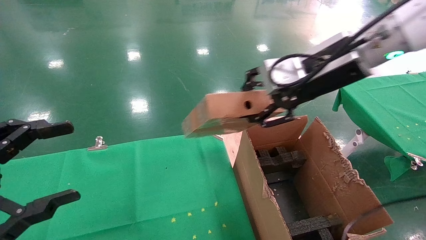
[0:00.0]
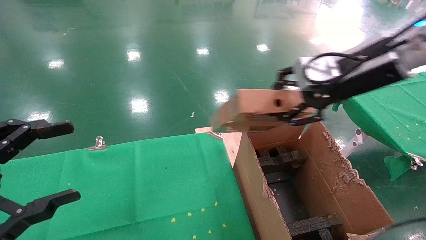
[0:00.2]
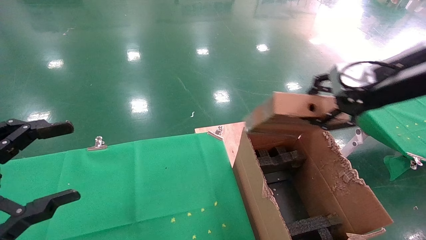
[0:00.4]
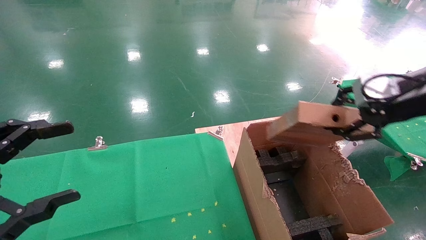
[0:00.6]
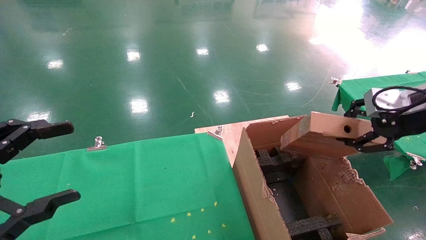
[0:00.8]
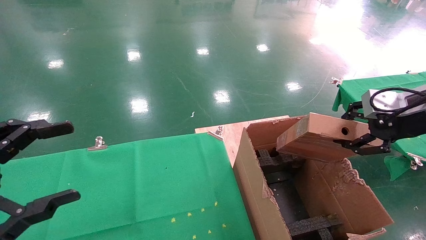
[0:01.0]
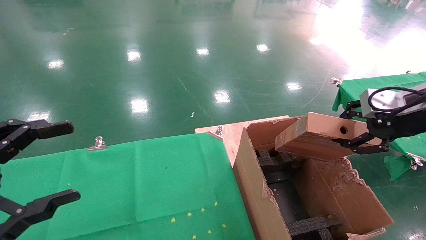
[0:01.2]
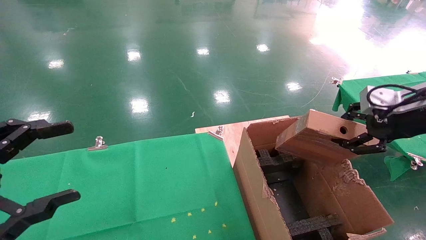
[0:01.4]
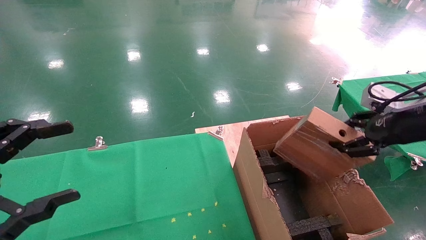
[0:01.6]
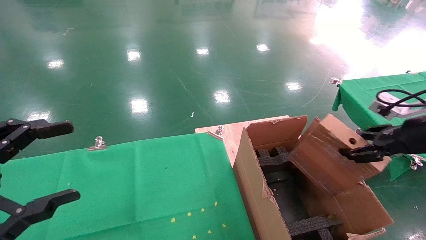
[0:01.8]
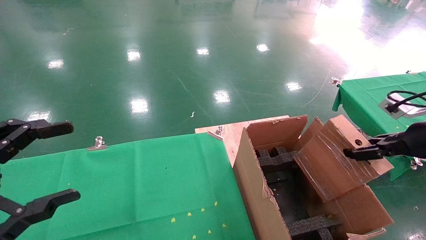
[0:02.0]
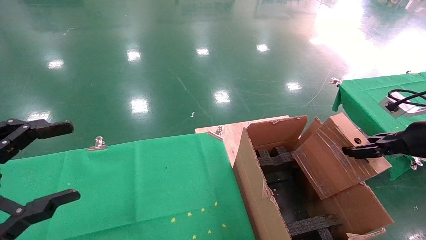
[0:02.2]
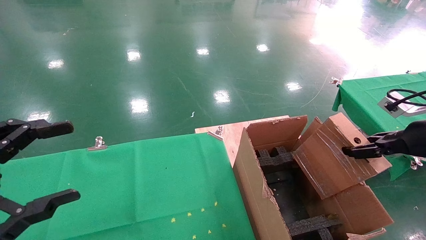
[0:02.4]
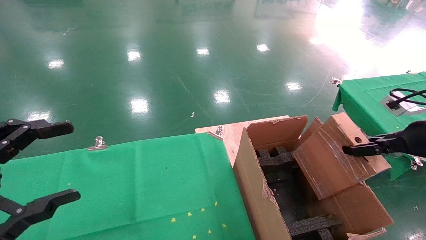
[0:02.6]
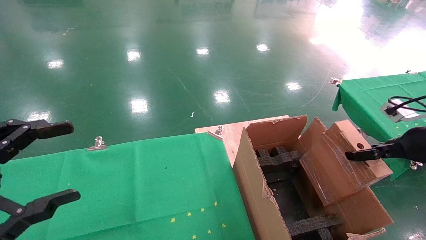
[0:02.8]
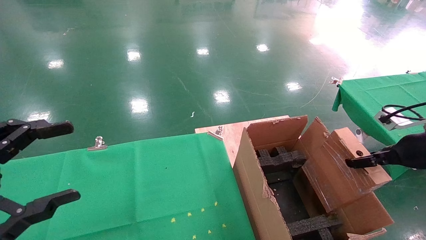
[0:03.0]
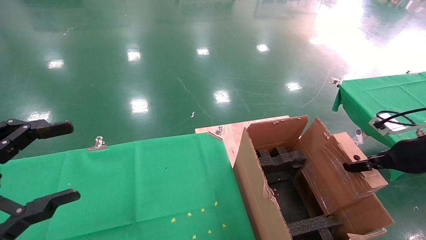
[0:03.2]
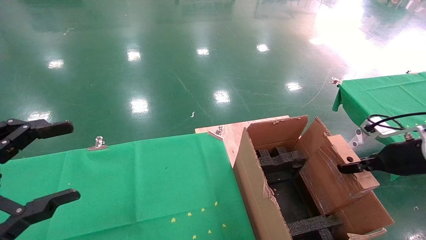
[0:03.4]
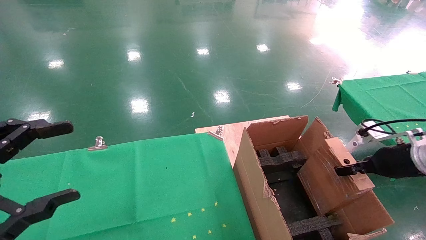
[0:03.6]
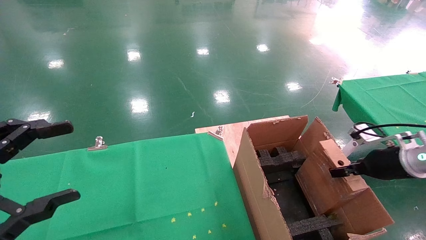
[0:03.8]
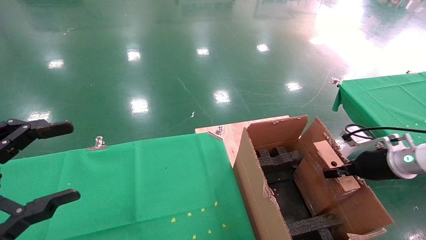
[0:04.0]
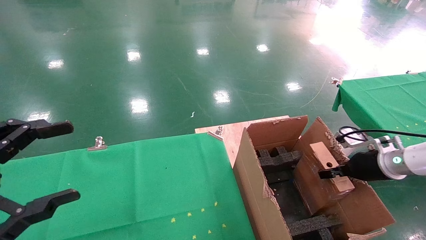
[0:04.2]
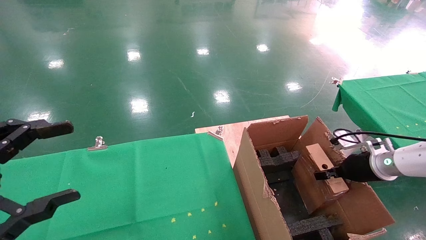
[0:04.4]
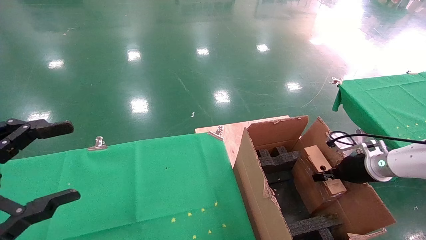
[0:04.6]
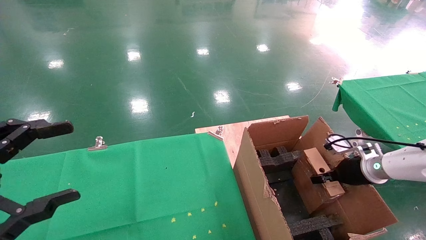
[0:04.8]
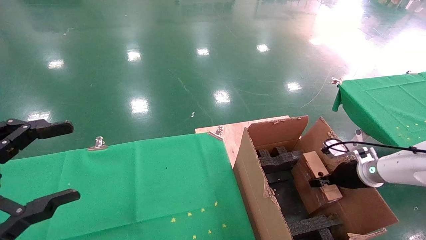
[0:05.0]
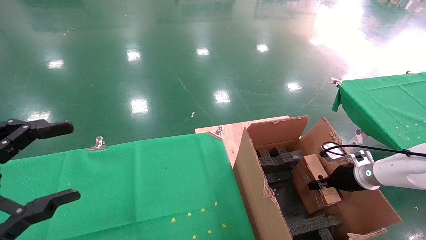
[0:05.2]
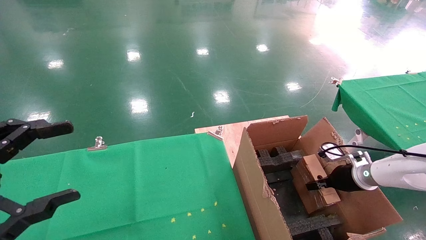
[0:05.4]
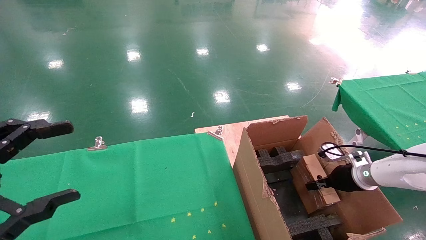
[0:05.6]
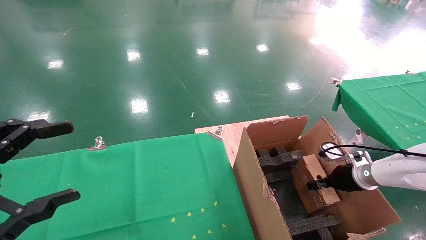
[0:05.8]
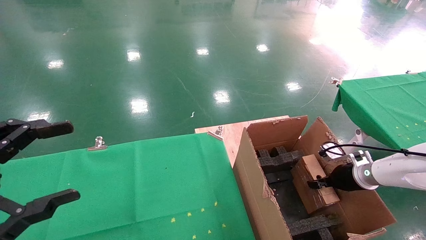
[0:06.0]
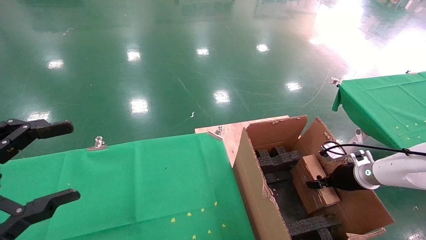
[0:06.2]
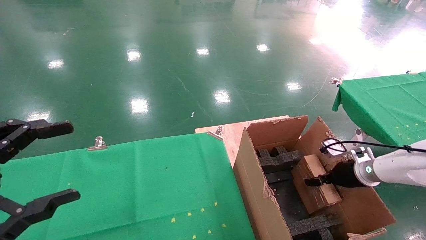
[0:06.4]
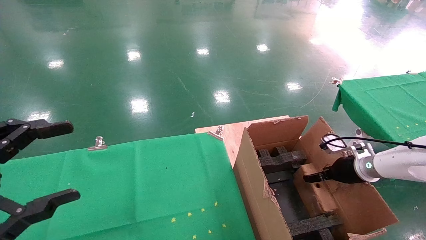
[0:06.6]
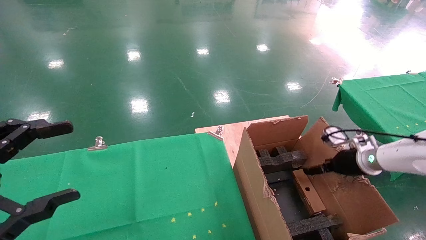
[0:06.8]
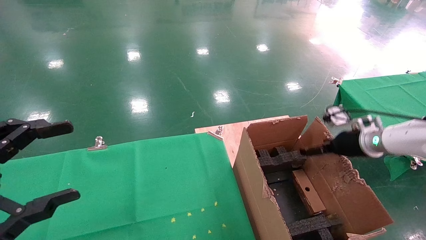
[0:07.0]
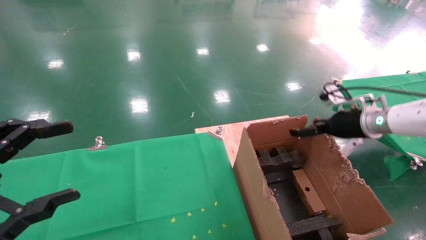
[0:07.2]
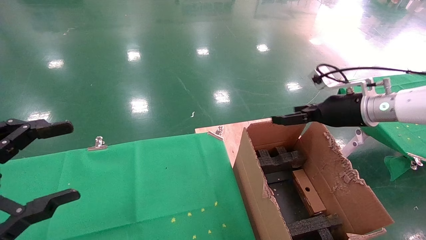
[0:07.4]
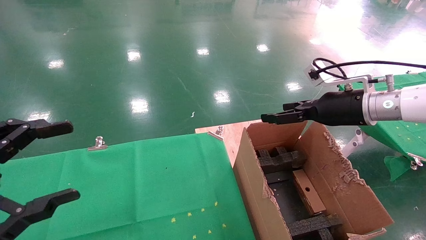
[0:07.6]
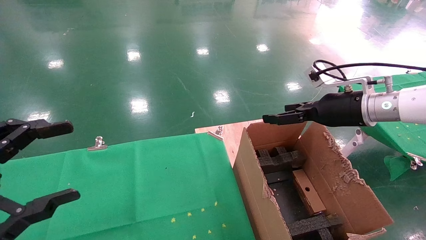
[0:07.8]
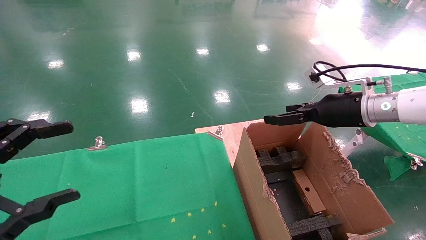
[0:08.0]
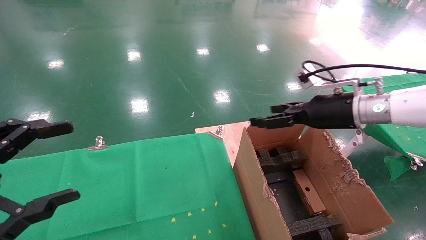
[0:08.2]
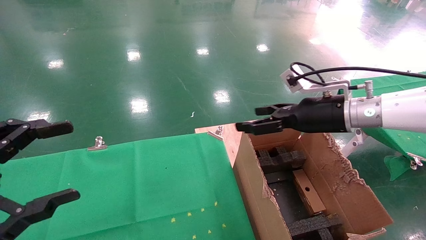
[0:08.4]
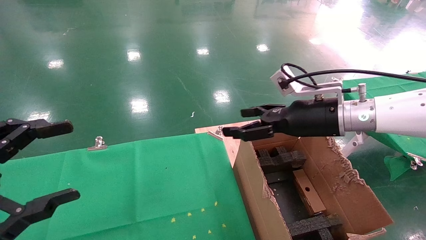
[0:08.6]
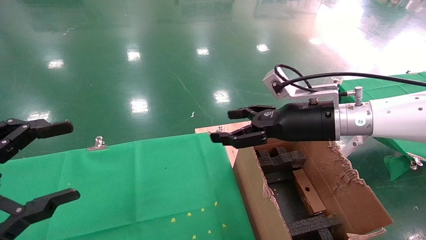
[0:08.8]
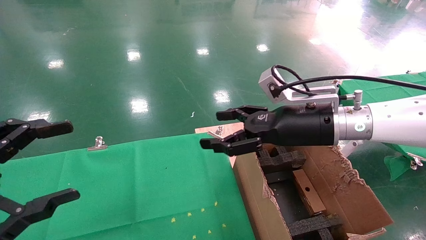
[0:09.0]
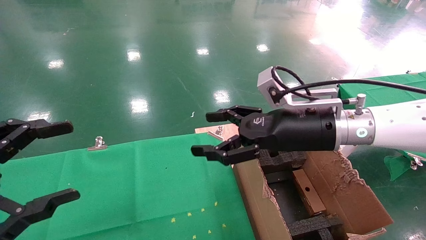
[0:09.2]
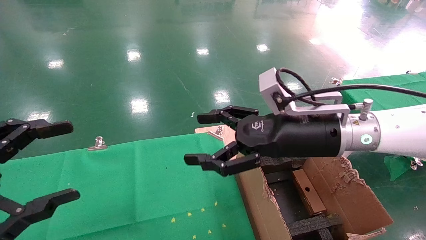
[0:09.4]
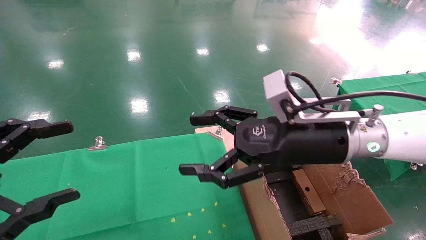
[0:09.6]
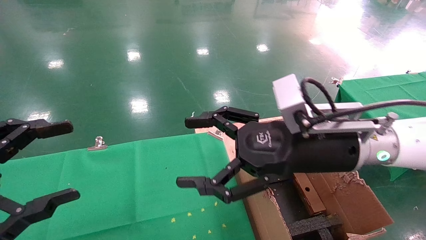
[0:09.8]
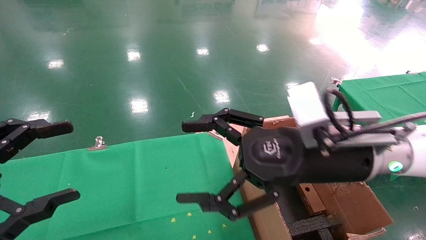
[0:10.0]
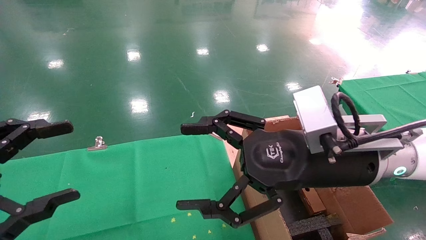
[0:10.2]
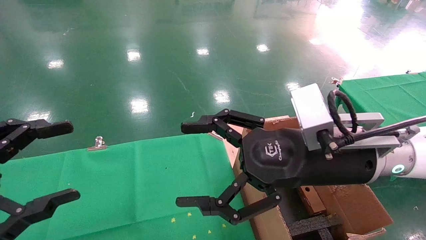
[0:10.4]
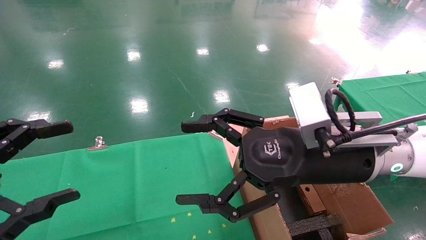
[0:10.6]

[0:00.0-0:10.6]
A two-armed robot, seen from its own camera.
Task of the whole recording: using a robotic arm to pick up a cardboard box and palace it the carton.
Step, 0:00.0 to 0:07.2: Place the mouse and the power cord paper box into the container.
0:00.0 to 0:01.6: The right gripper heads to the right and downward, covering roughly 20 cm.
0:01.6 to 0:03.0: The right gripper travels downward by about 5 cm.
0:03.0 to 0:04.6: The right gripper shifts about 15 cm downward and forward.
0:04.6 to 0:06.0: The grippers move only a little.
0:06.0 to 0:07.6: The right gripper travels upward and to the left by roughly 20 cm, and opens up.
0:07.6 to 0:09.0: The right gripper heads to the left, covering roughly 10 cm.
0:09.0 to 0:10.6: The right gripper is displaced backward by some 10 cm.
